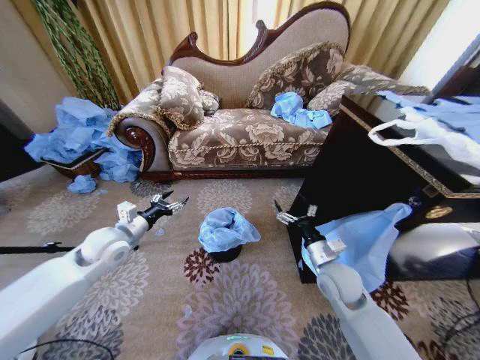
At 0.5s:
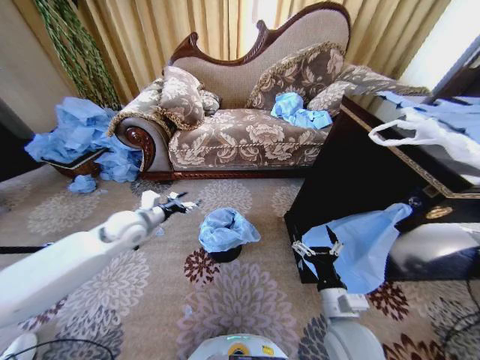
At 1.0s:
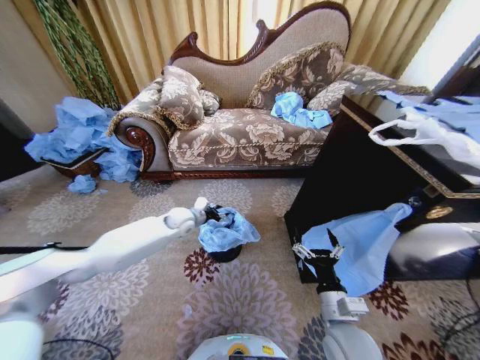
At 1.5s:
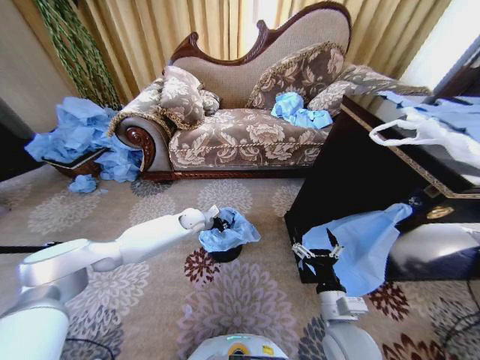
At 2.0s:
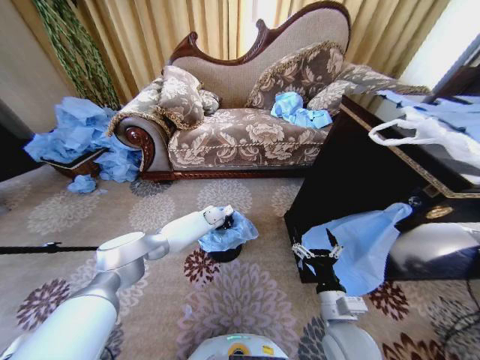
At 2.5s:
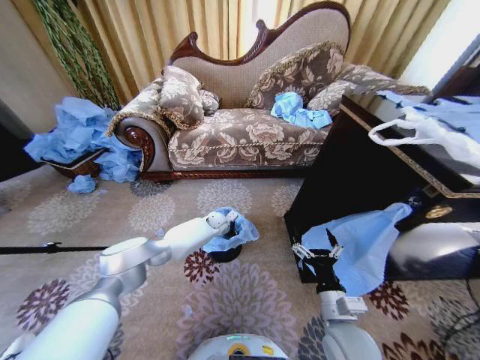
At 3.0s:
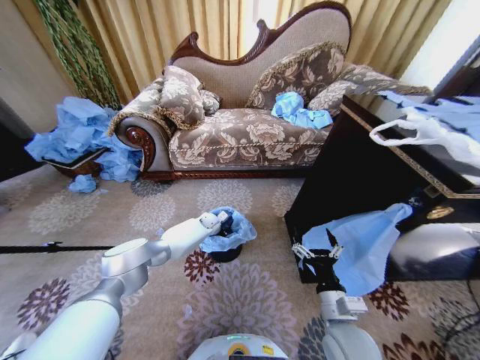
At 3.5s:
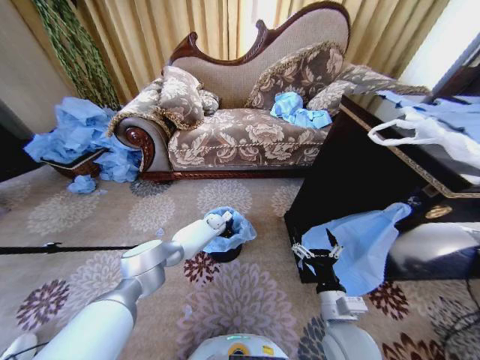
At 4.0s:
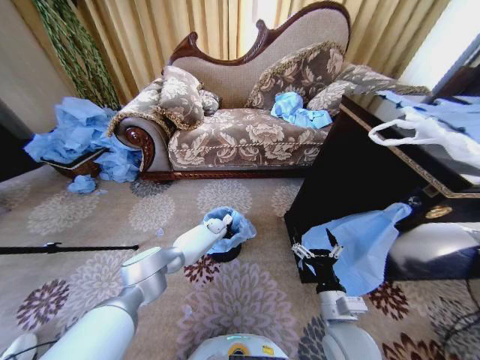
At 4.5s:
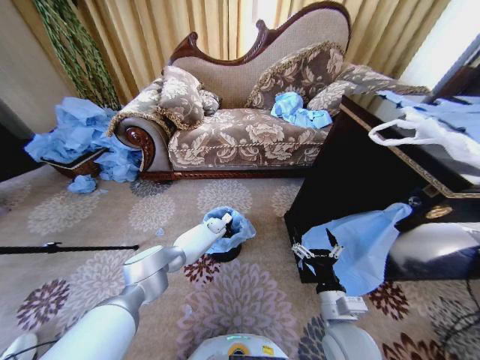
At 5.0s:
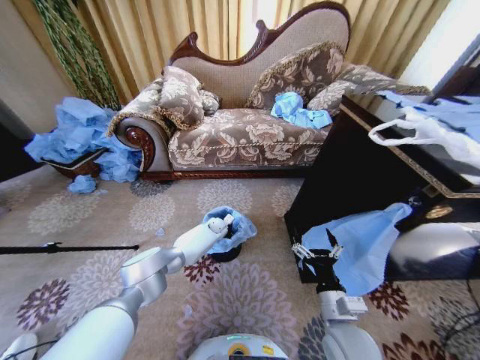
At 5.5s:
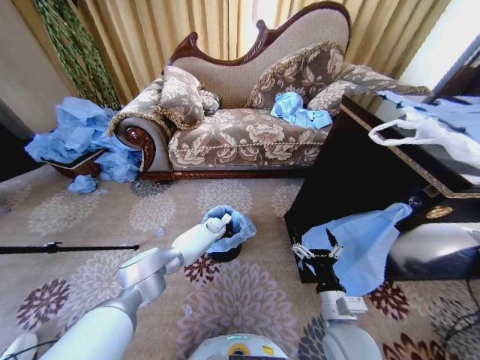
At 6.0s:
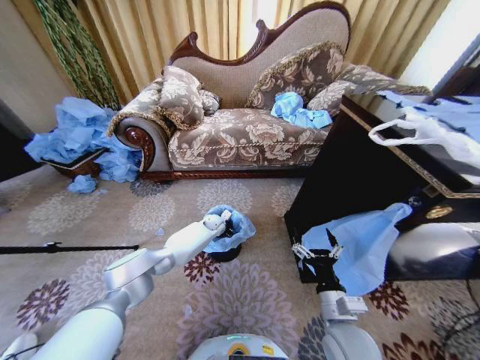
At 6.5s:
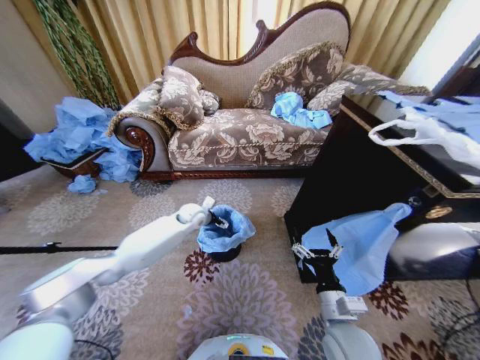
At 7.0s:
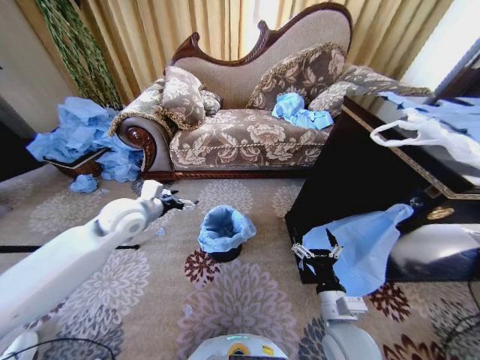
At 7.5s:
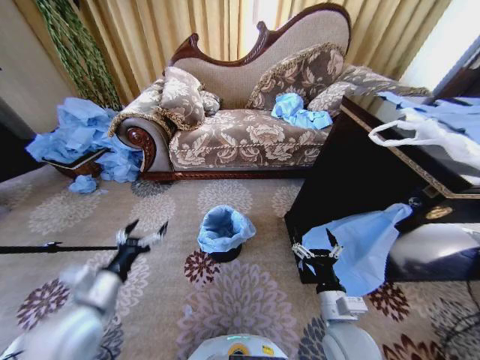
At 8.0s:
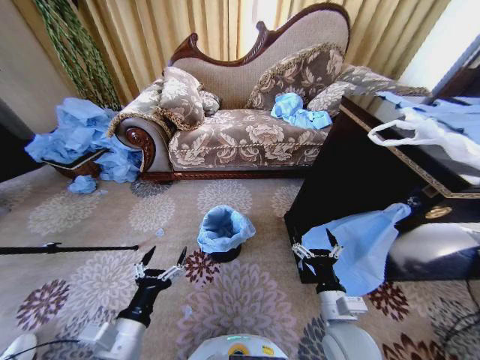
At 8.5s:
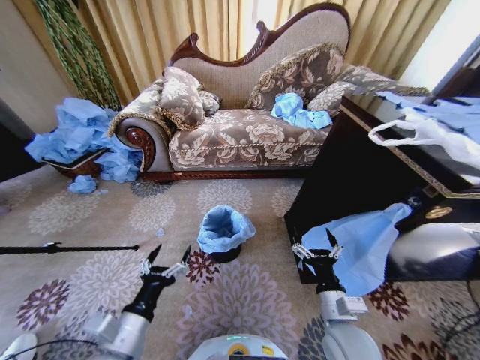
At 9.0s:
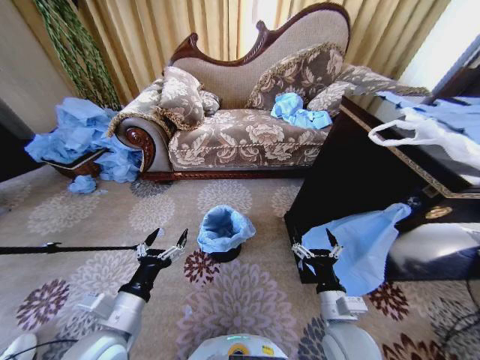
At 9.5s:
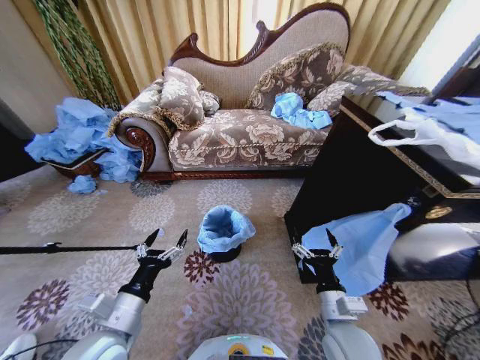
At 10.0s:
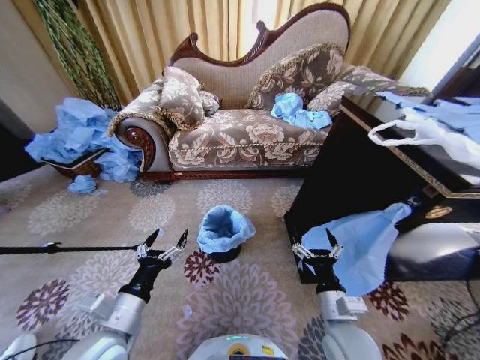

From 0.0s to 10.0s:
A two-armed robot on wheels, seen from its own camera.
Task of the whole recording: Place a garbage bag over the trash bin.
From 0.0s to 2.0s: The left gripper goes roughly 35 cm forward, to the right and downward, and closes its fingers. Meanwhile the right gripper goes approximately 15 cm backward.
From 2.0s to 4.0s: The left gripper heads downward, covering roughly 5 cm.
From 4.0s to 6.0s: The left gripper opens its fingers.
From 6.0s to 8.0s: The left gripper heads backward, covering about 50 cm.
From 8.0s to 10.0s: The grippers stay close to where they were, moving slightly.
